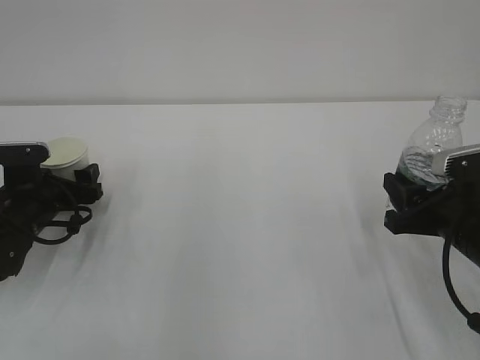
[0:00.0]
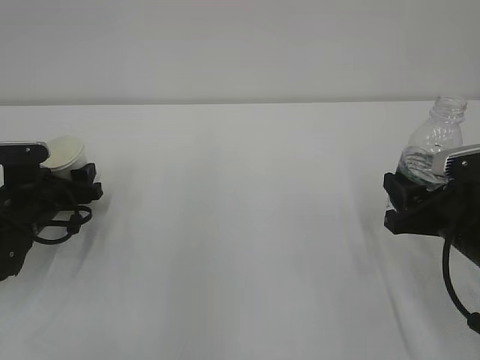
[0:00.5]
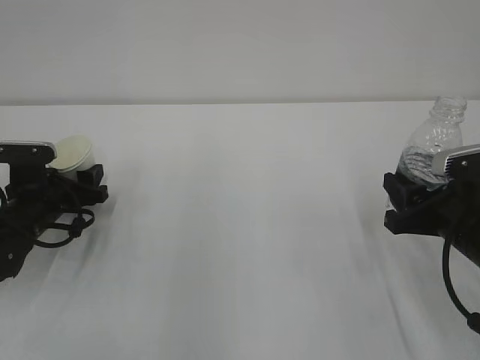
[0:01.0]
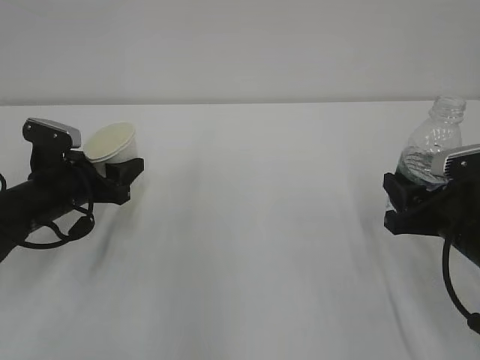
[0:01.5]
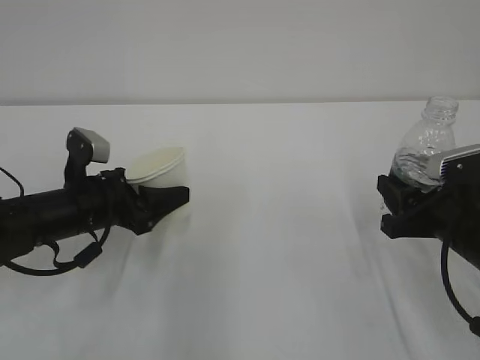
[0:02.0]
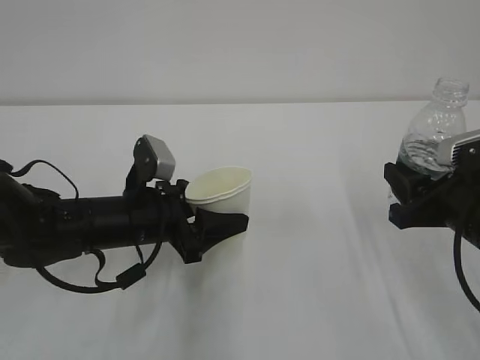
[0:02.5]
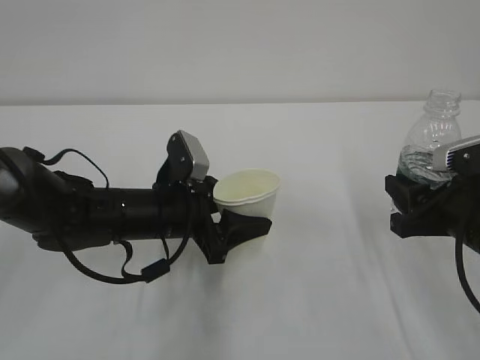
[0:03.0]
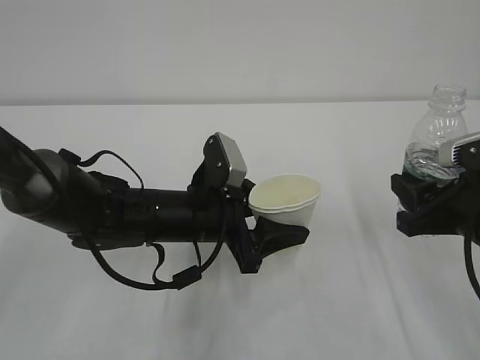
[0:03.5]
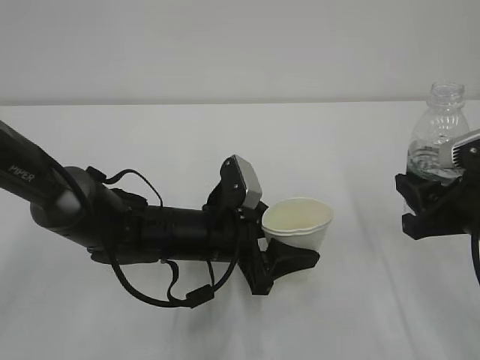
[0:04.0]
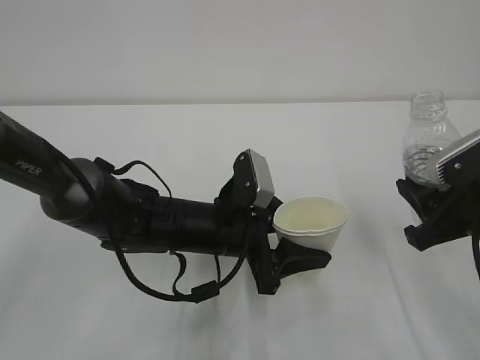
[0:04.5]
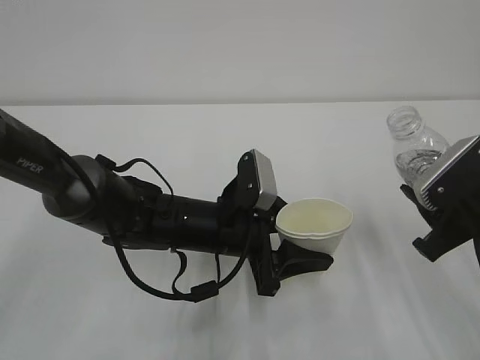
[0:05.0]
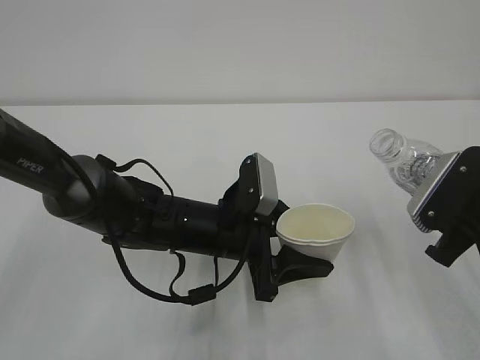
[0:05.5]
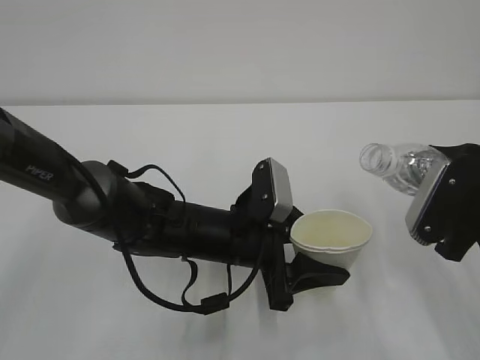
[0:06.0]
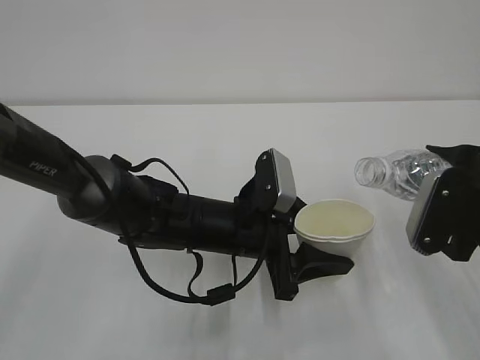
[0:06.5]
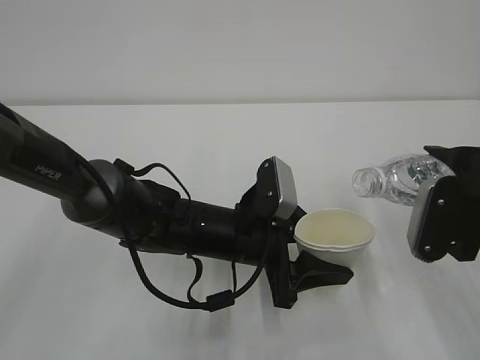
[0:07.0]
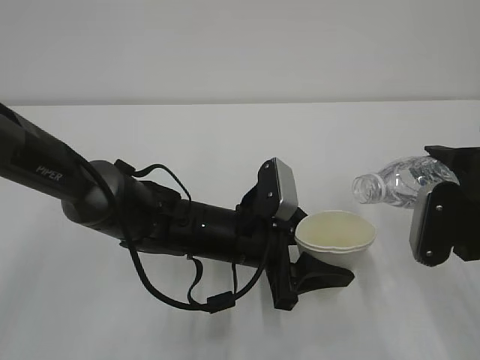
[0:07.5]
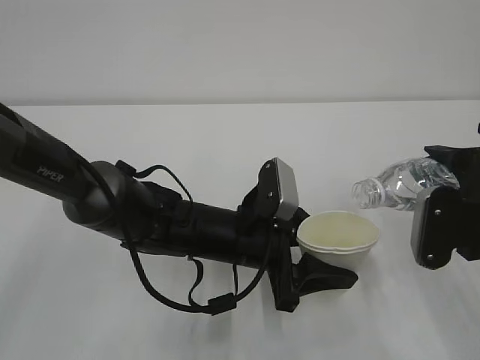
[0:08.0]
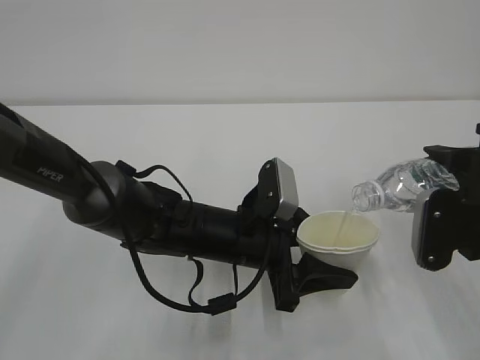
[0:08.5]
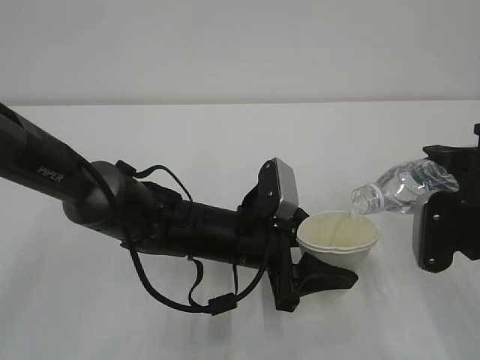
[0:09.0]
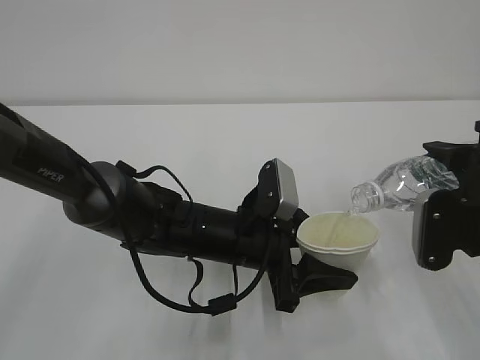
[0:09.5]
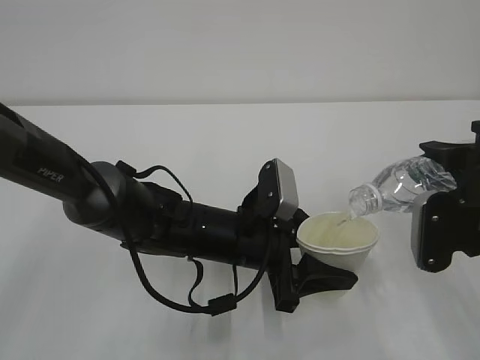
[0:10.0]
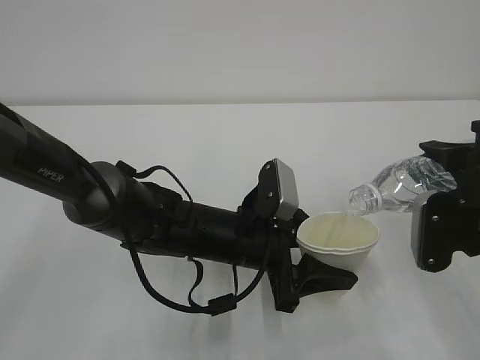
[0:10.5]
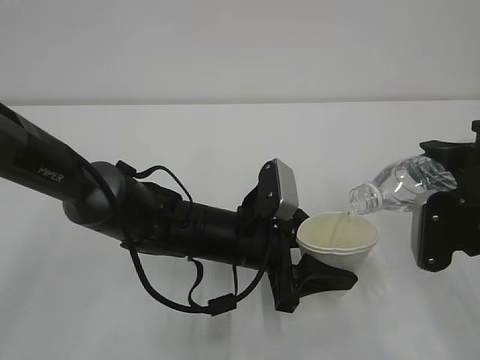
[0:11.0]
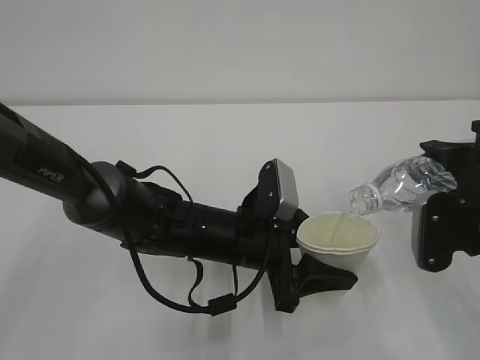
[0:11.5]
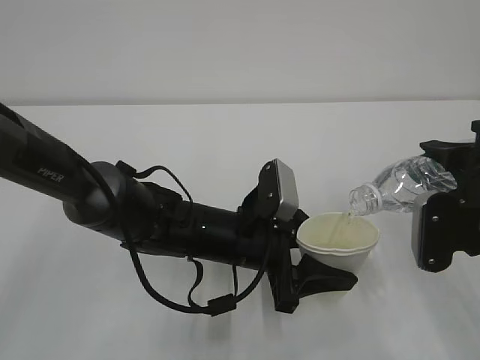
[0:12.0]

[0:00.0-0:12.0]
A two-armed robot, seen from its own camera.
0:00.0 to 0:02.0: The left gripper shifts some 10 cm to the right, and closes its fingers.
0:02.0 to 0:04.0: The left gripper travels to the right by about 15 cm.
0:08.0 to 0:10.0: The grippers stay close to where they were, moving slightly.
0:10.0 to 0:12.0: Neither gripper changes place.

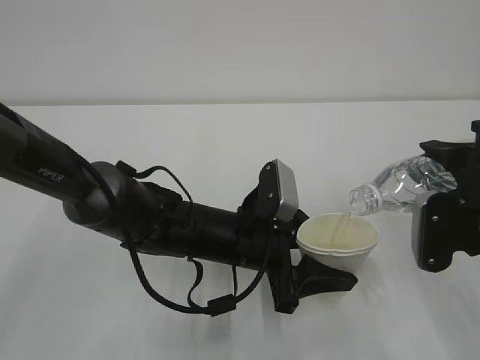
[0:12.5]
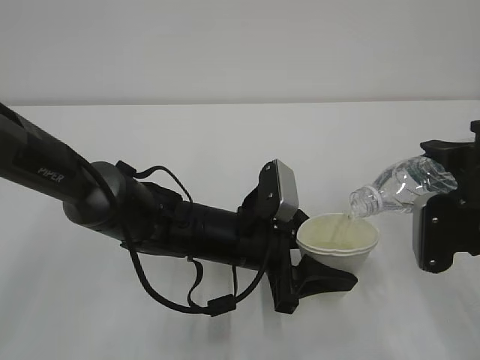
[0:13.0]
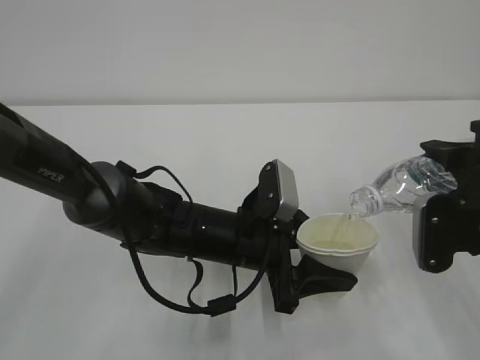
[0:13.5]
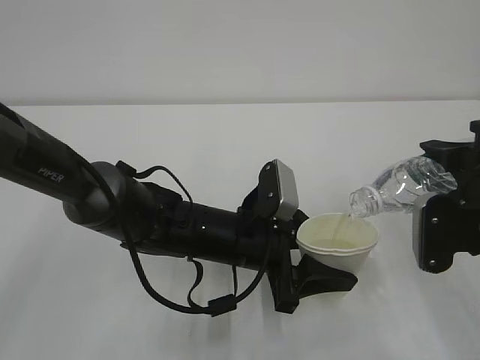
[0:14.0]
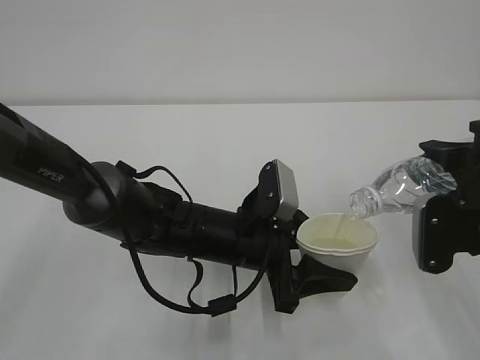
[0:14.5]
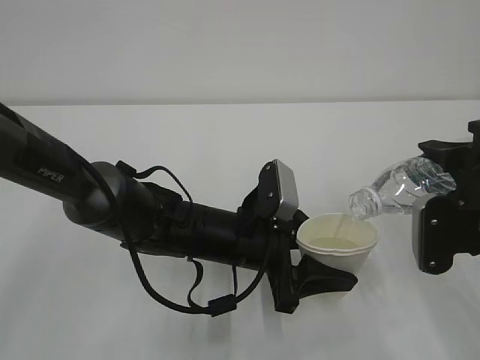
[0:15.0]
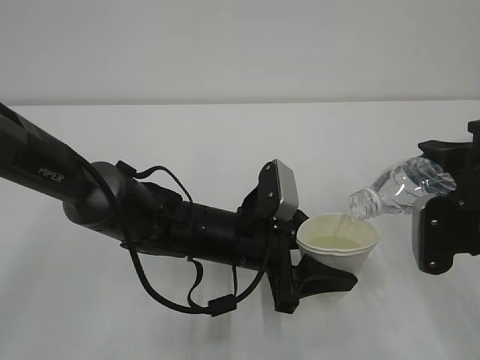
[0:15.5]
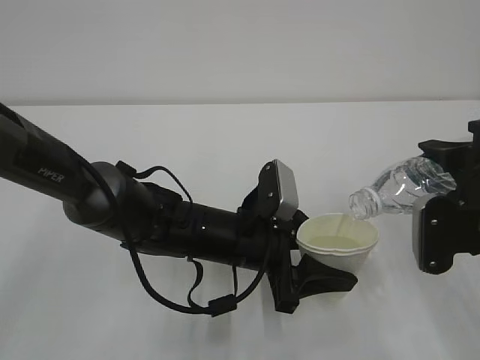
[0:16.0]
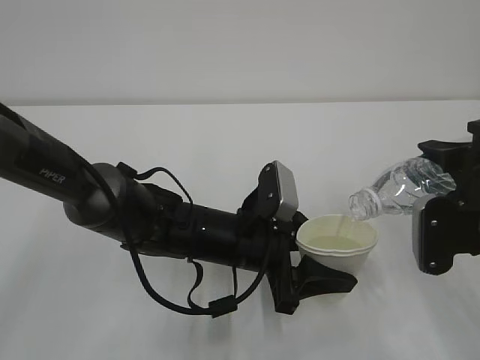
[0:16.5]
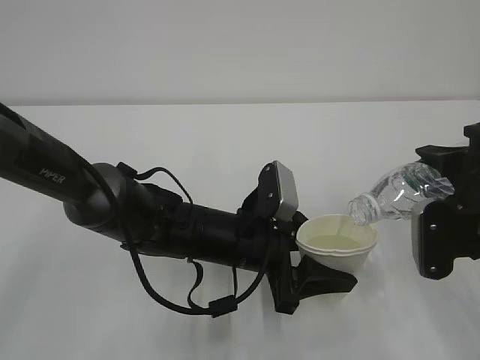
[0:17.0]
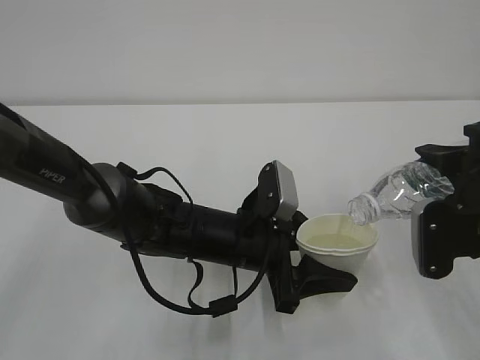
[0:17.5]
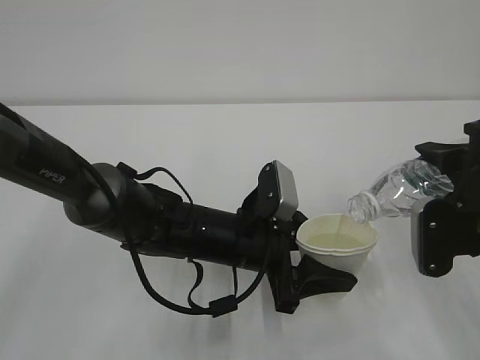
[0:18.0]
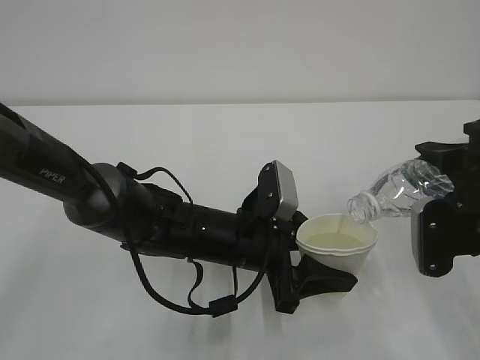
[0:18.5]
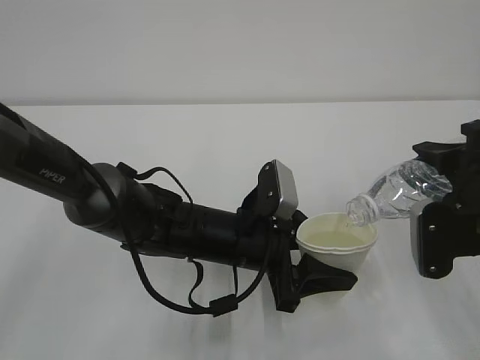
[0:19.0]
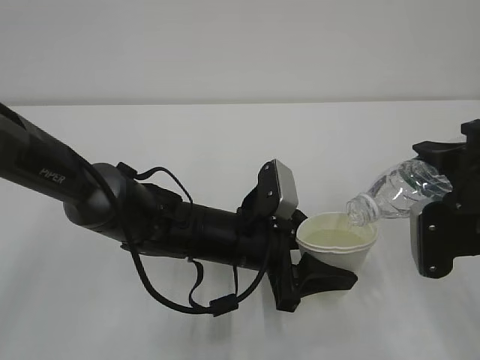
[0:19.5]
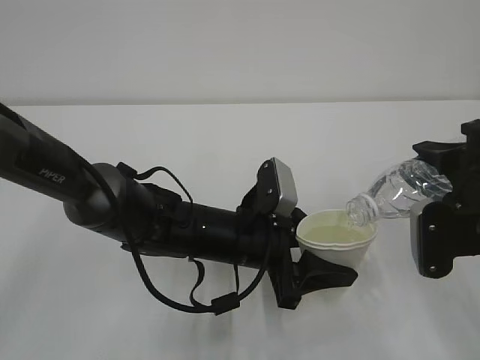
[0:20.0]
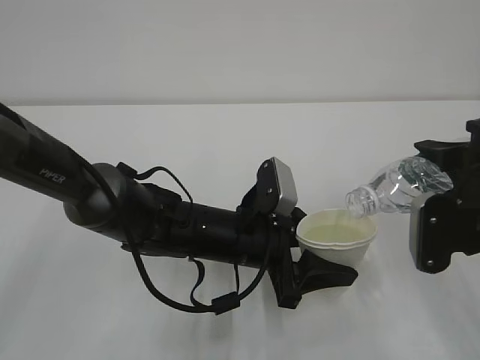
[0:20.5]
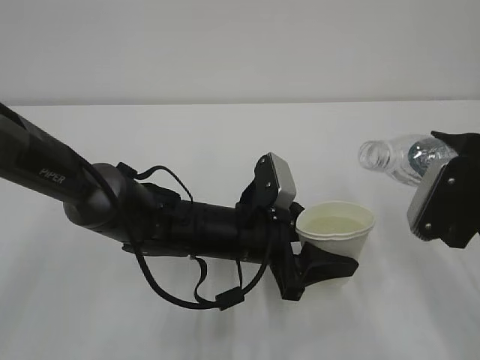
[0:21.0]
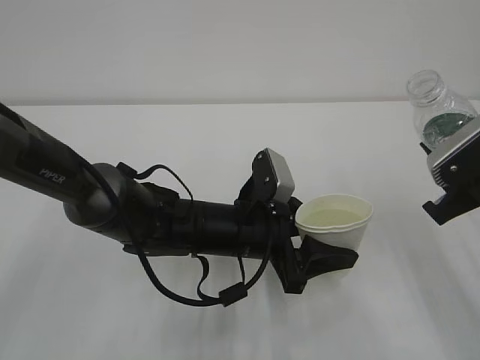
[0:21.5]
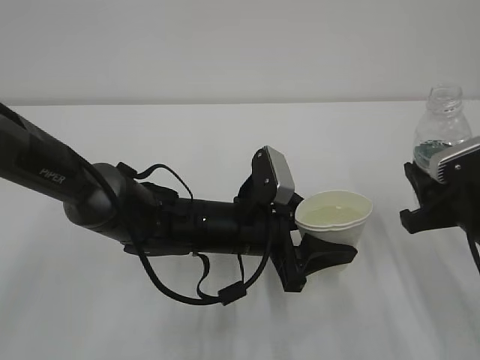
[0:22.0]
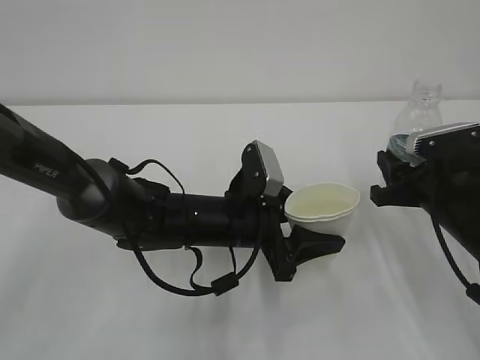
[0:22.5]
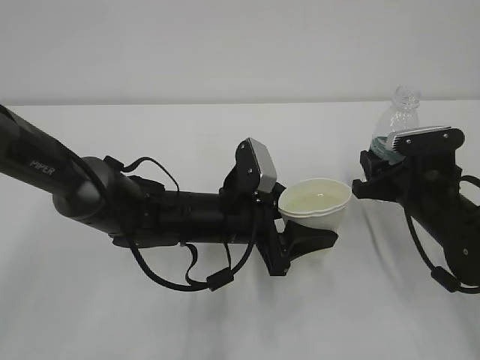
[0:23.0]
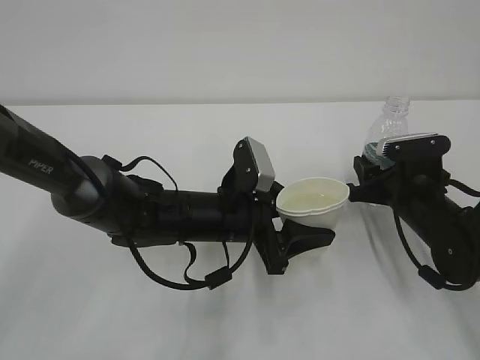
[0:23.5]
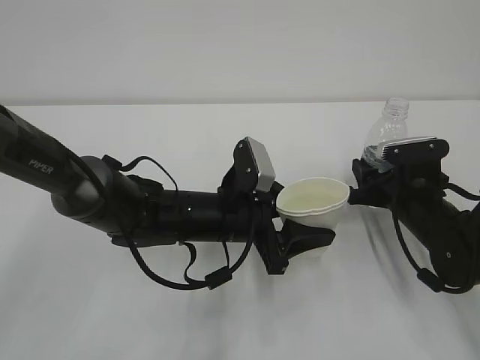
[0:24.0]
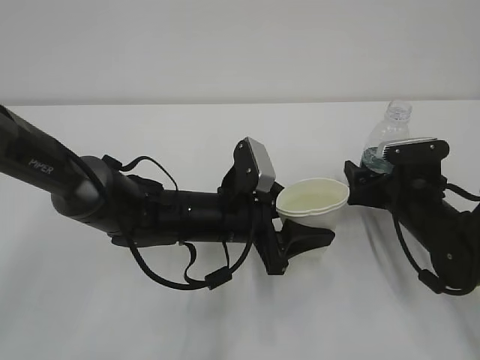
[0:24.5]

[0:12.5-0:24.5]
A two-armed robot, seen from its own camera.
0:12.5 to 0:18.5: The two grippers keep their place.
0:18.5 to 0:20.5: Neither gripper changes place.
0:20.5 to 0:22.5: The right gripper is displaced forward and downward by approximately 10 cm.
0:22.5 to 0:24.5: The right gripper moves downward and forward, about 10 cm, and opens its fingers.

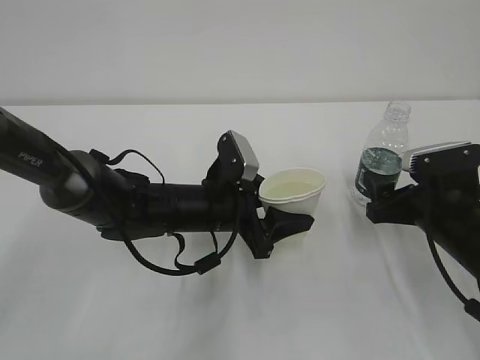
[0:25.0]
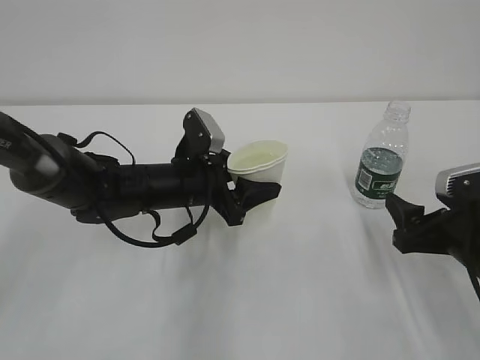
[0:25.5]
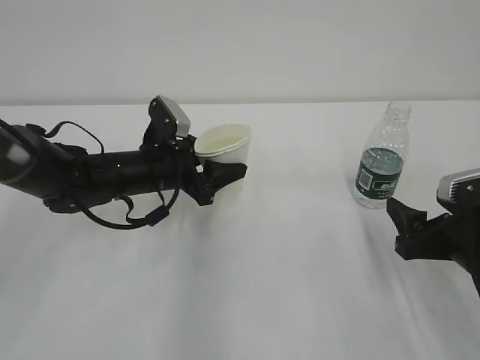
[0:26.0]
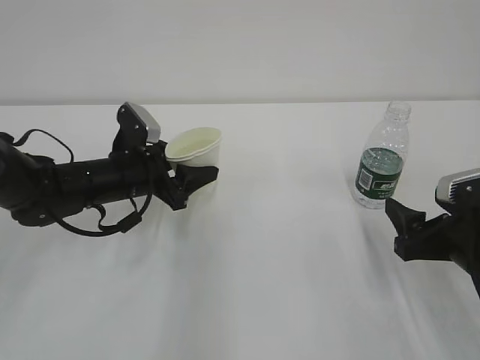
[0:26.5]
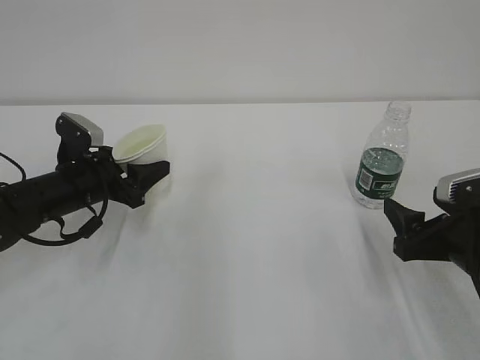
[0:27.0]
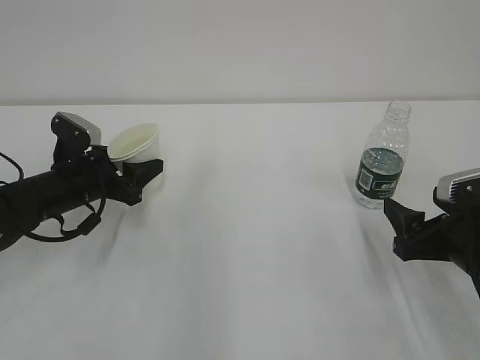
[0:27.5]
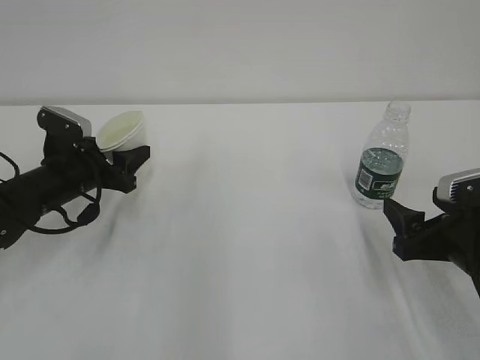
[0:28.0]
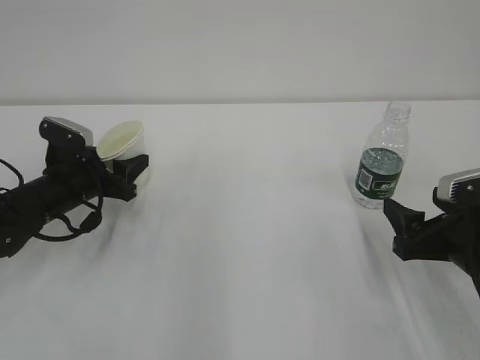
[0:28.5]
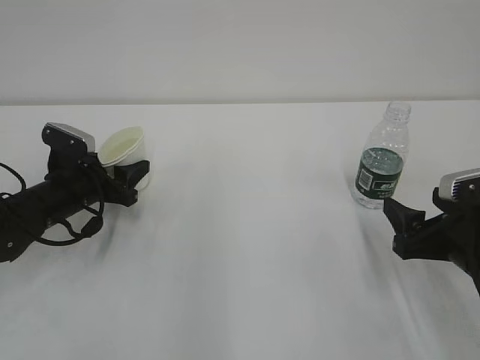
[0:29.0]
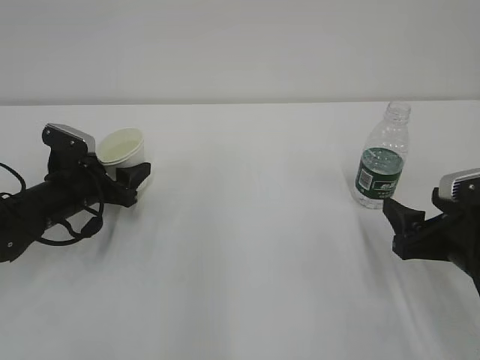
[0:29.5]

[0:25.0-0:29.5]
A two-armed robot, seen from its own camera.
0:25.0 to 0:27.0: The left gripper goes about 20 cm to the left. Meanwhile the right gripper shifts approximately 5 cm backward.
0:27.0 to 0:29.5: The grippers make only small movements.
